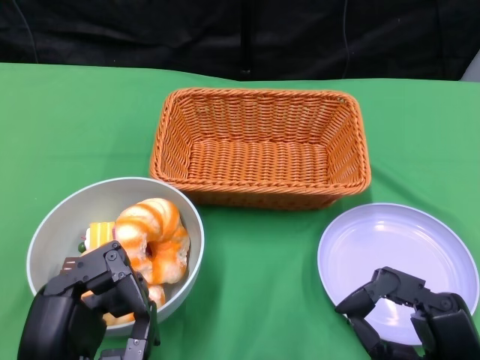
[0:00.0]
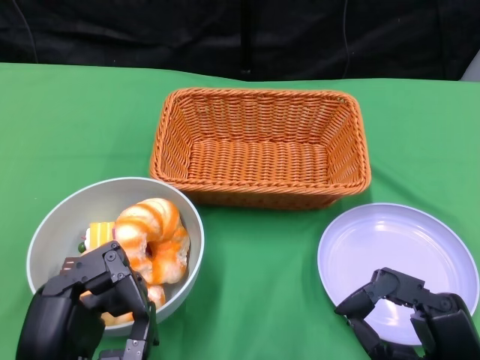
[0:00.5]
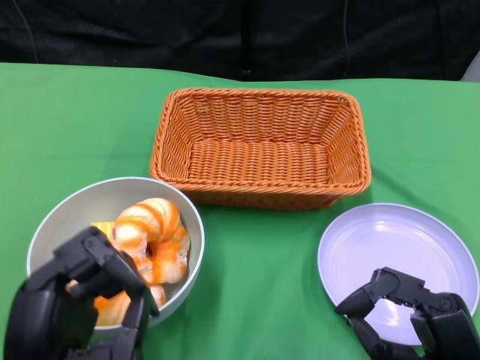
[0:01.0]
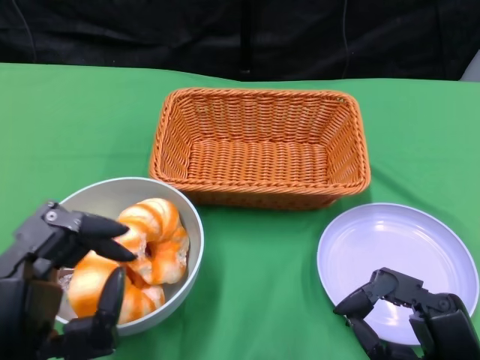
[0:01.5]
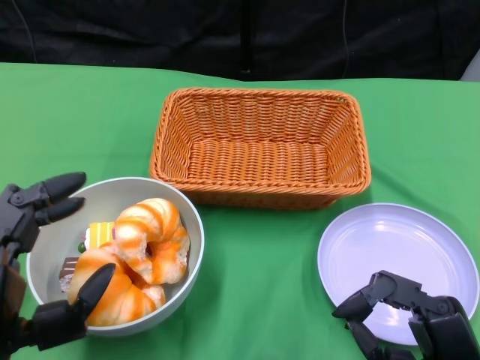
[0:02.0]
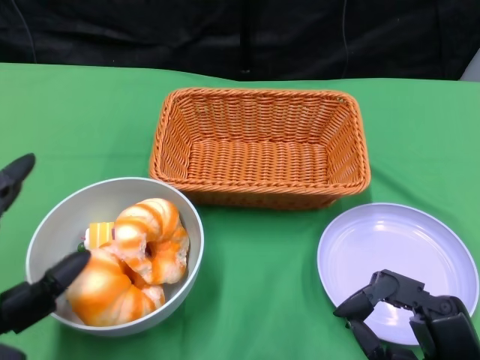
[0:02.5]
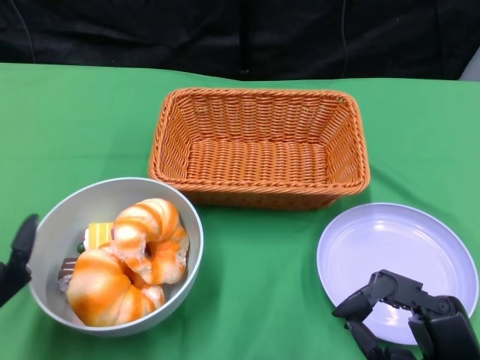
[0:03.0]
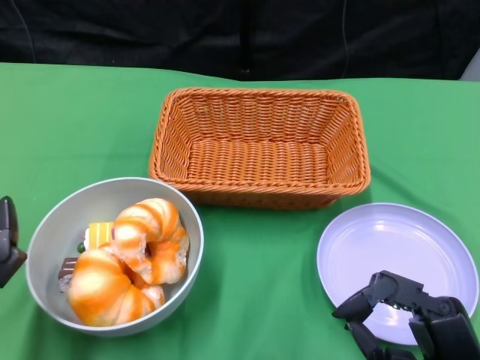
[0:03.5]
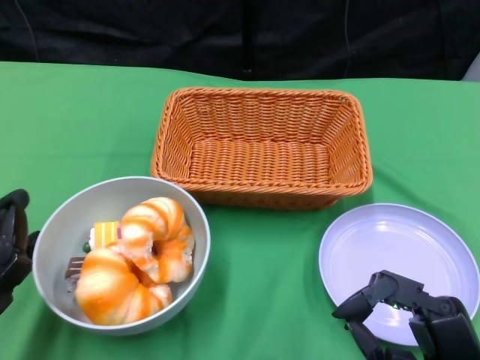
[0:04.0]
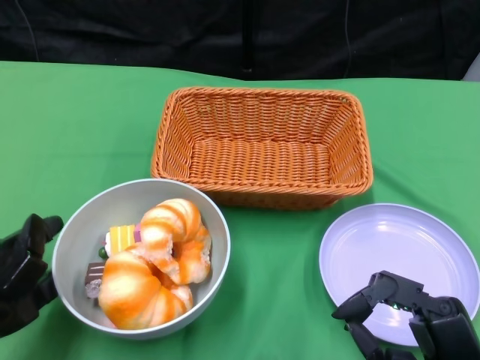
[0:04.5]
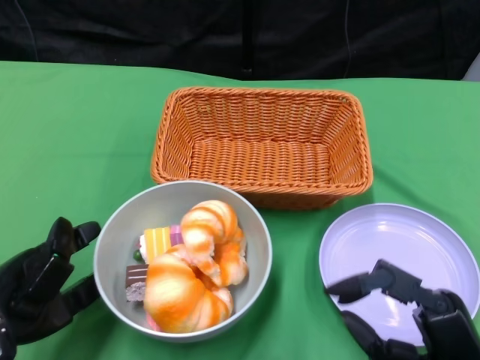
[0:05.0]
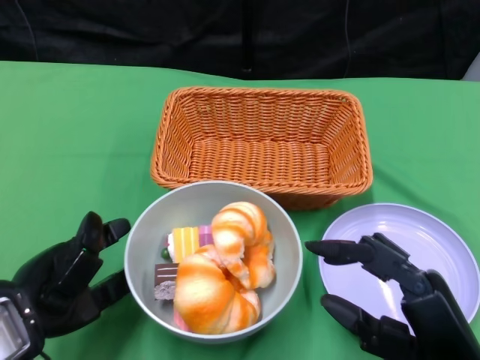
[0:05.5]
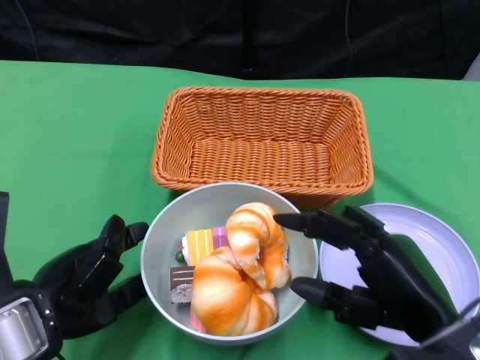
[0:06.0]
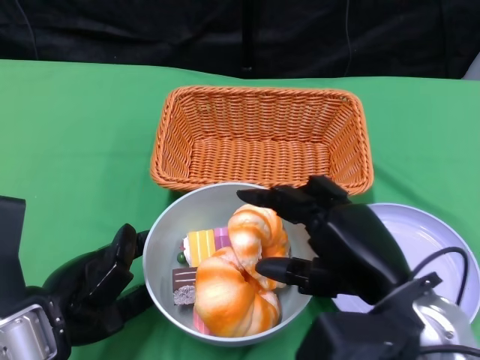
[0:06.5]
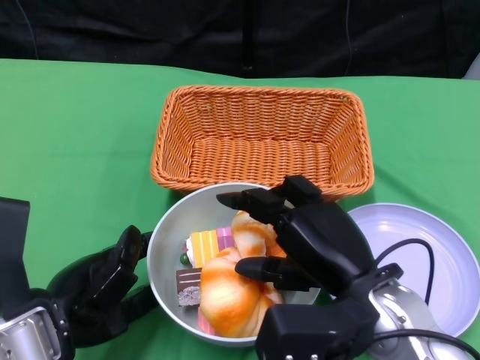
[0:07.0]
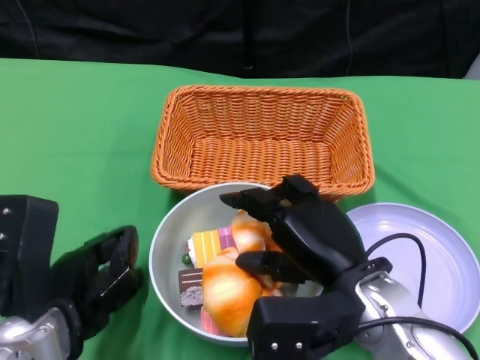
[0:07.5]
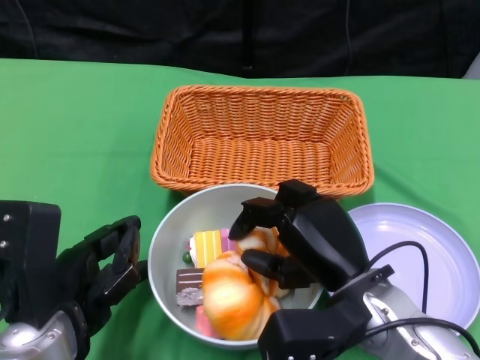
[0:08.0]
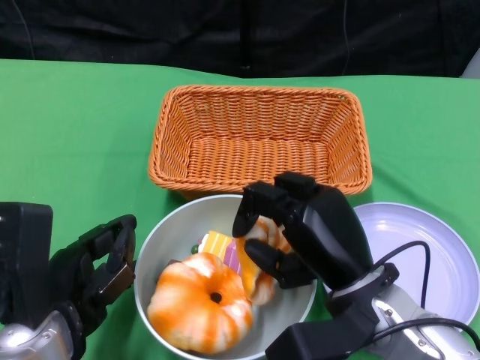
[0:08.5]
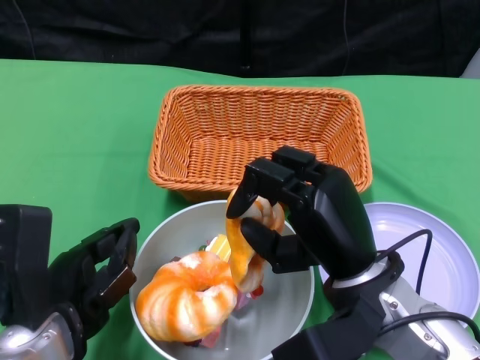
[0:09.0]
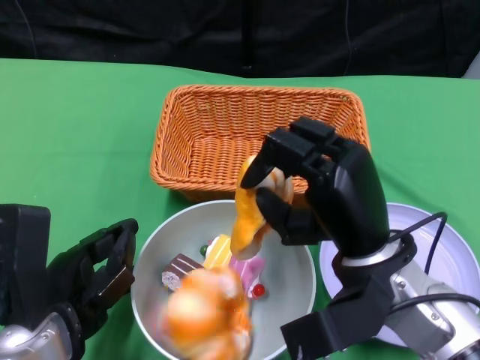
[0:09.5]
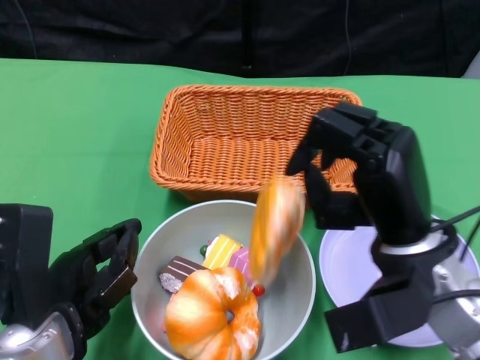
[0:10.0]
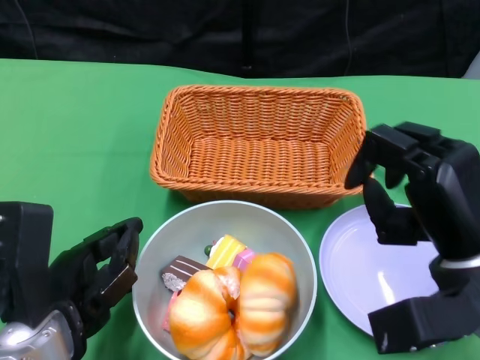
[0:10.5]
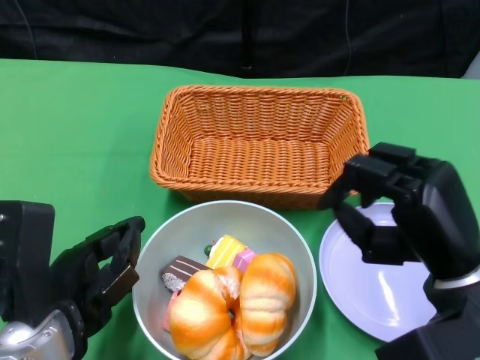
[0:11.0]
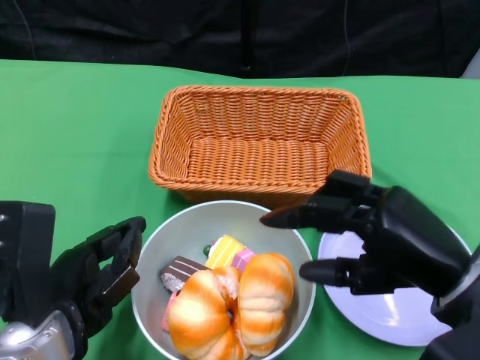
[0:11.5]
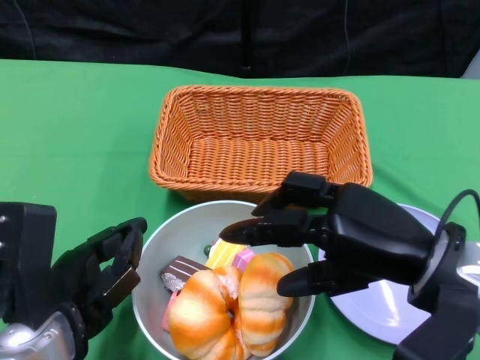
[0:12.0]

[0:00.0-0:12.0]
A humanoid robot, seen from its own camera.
Step, 0.0 to 6.5 s: Push the bowl to the center of the table using the left gripper.
2.0 to 4.0 s: The left hand moves to the left and forward, about 10 cm.
4.0 to 6.0 s: The right hand is displaced upward by about 5 cm. Meanwhile the left hand goes approximately 5 cm to the right.
6.0 to 8.0 s: The right hand shifts some 10 cm to the left and forward.
8.0 to 10.0 s: The right hand is displaced upward by roughly 5 cm.

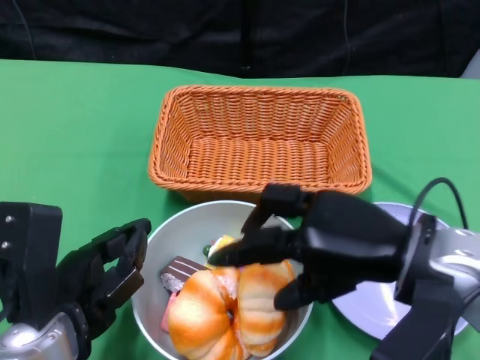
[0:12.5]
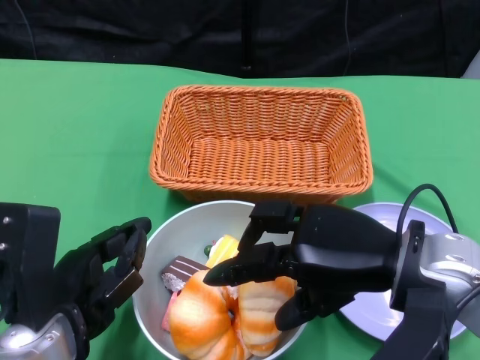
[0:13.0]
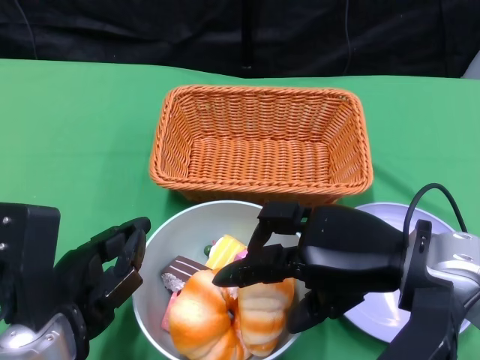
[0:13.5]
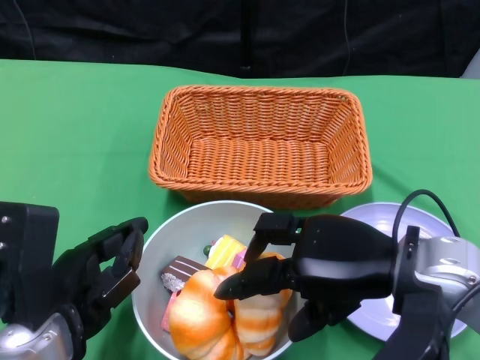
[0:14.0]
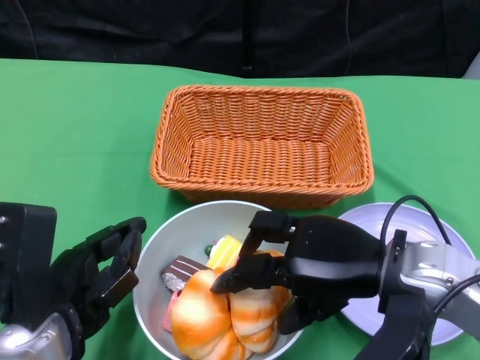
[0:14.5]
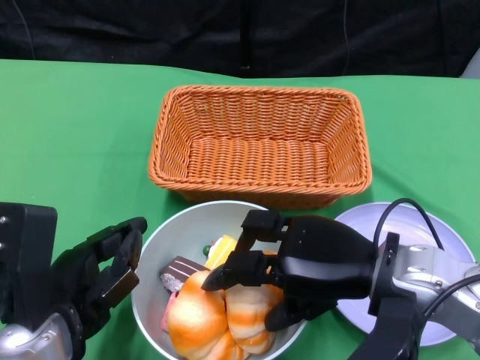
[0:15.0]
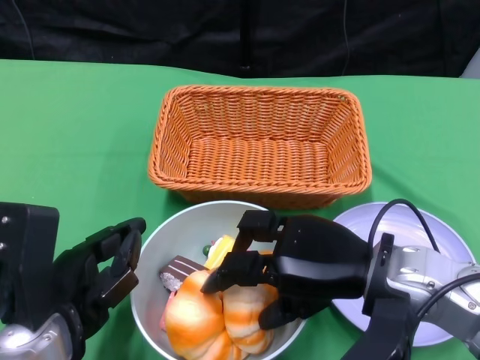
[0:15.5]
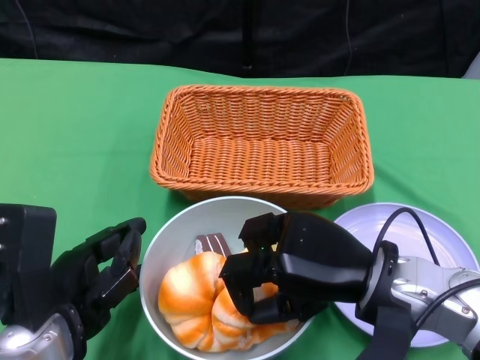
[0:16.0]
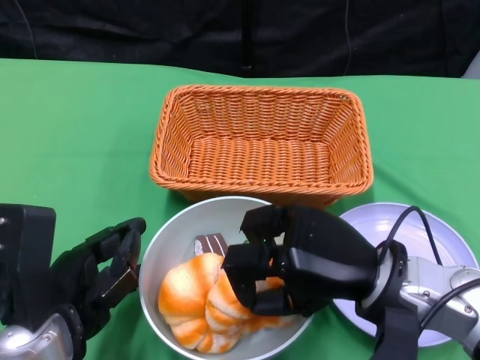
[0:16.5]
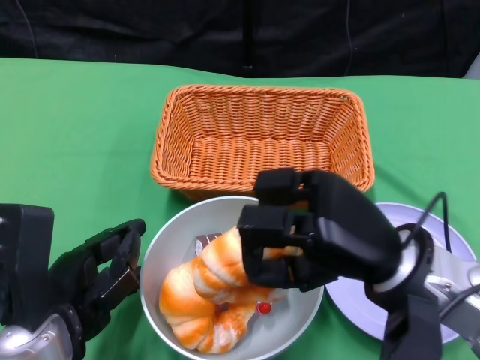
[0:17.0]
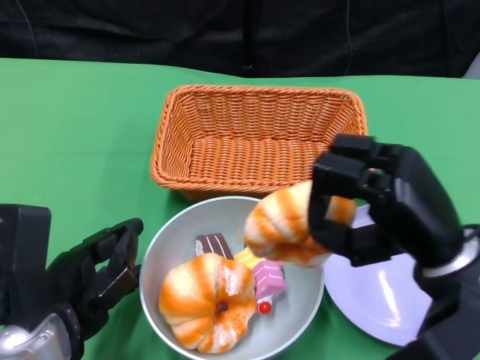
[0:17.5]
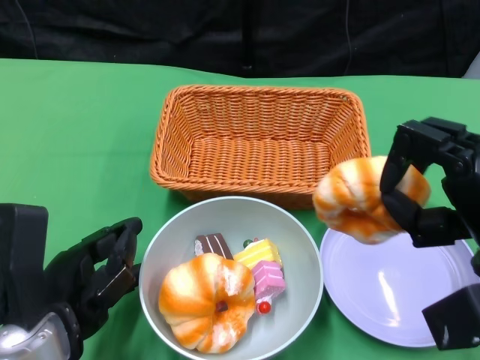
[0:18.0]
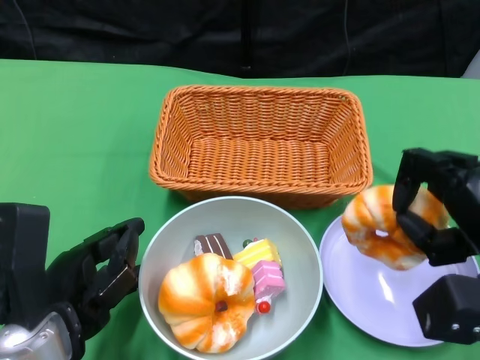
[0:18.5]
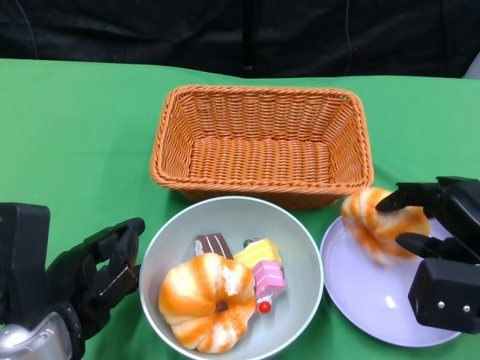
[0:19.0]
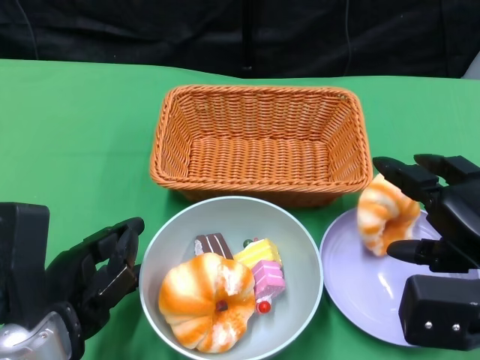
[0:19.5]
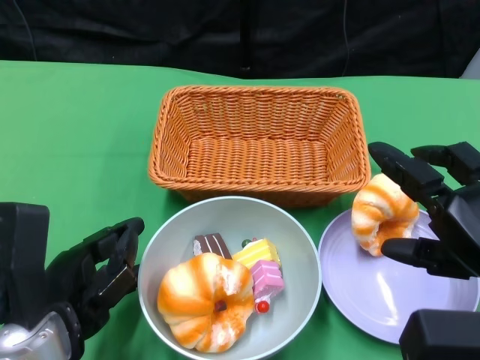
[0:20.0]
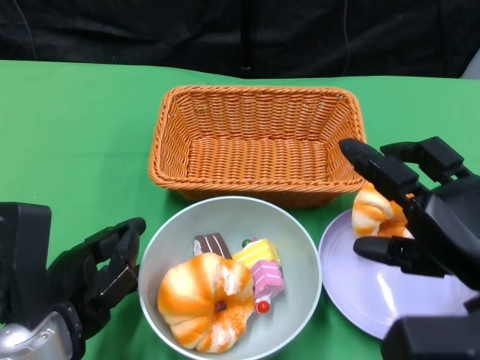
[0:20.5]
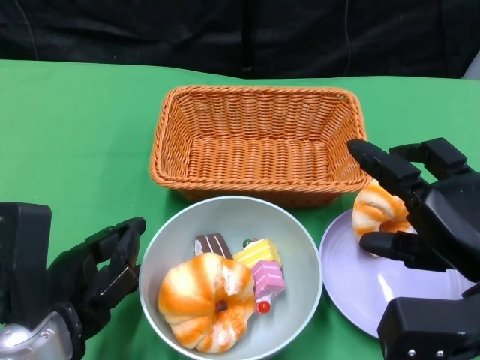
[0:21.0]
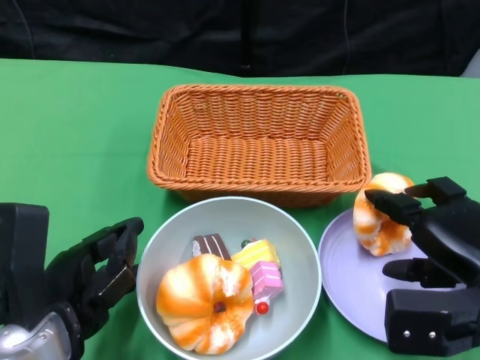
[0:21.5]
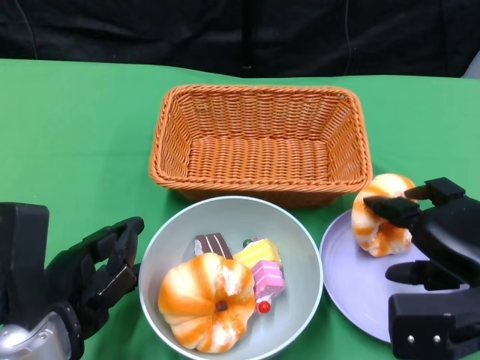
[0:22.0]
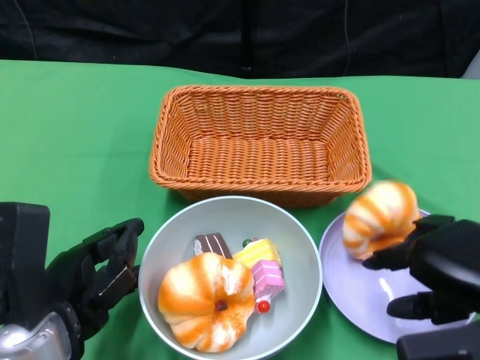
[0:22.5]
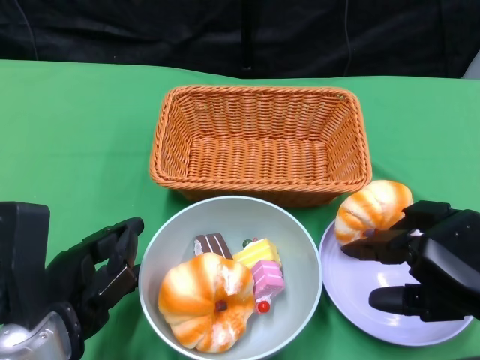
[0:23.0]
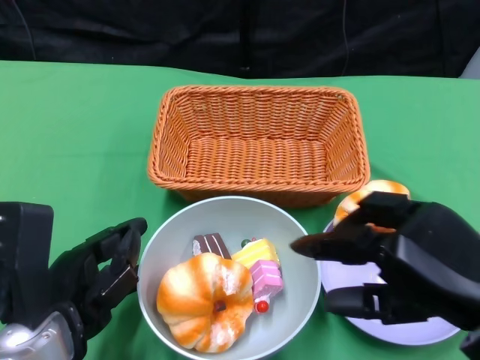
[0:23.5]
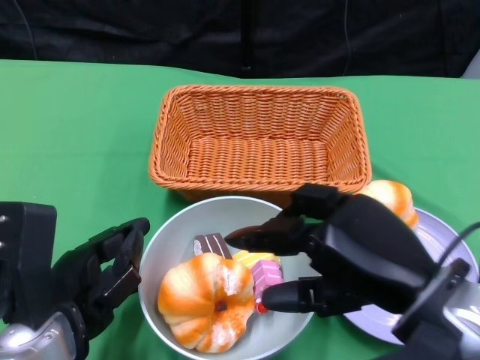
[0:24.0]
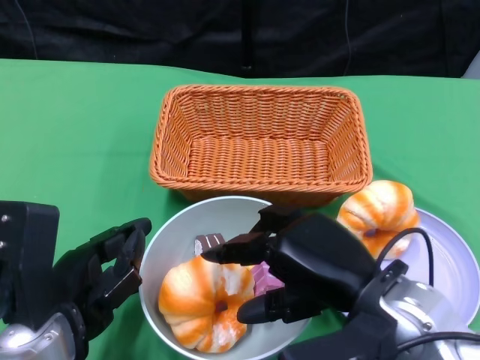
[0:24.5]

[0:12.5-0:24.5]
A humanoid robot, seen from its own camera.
16.5 to 18.5 s: The right hand goes about 10 cm to the right.
18.5 to 20.5 s: The right hand ends up roughly 5 cm from where it was.
22.5 to 24.5 s: The right hand goes about 10 cm to the left.

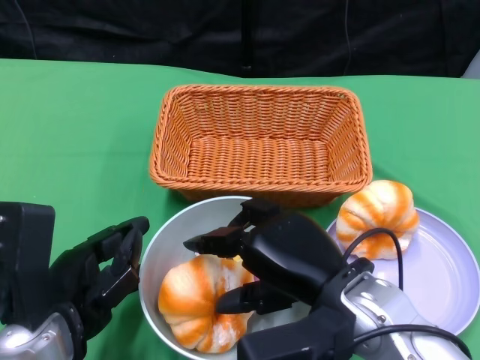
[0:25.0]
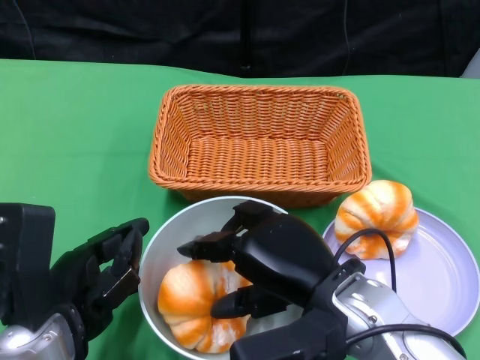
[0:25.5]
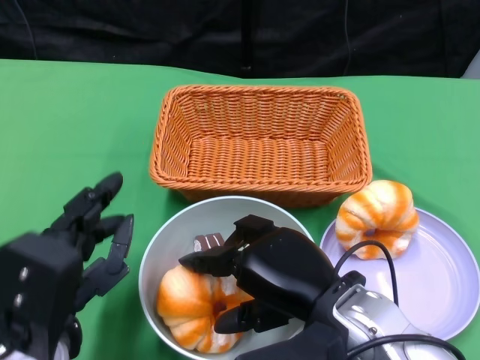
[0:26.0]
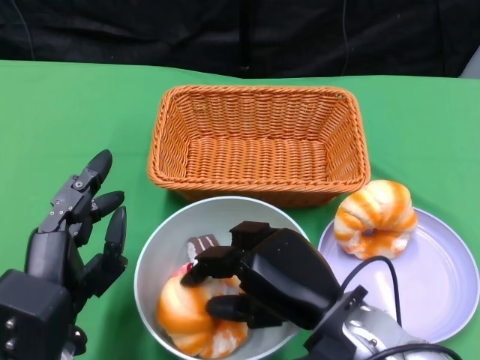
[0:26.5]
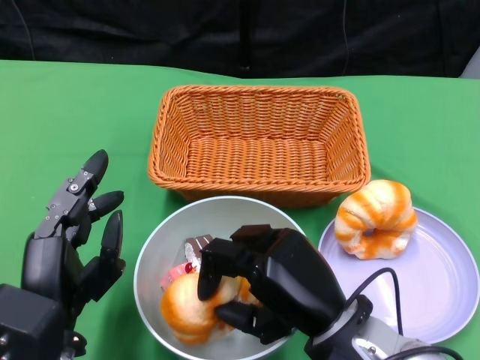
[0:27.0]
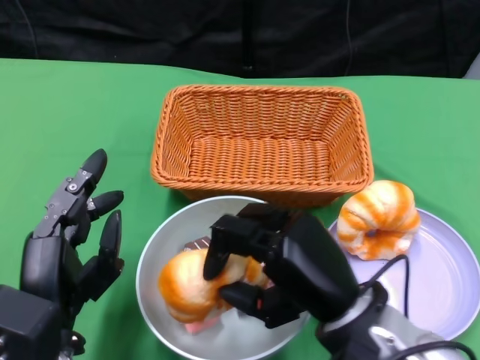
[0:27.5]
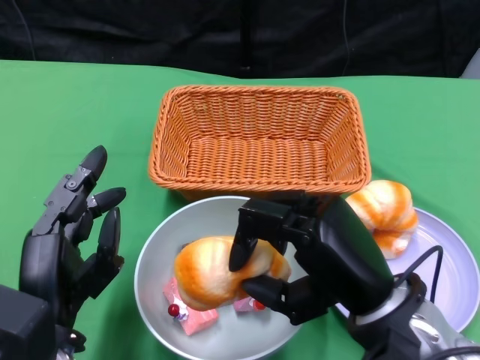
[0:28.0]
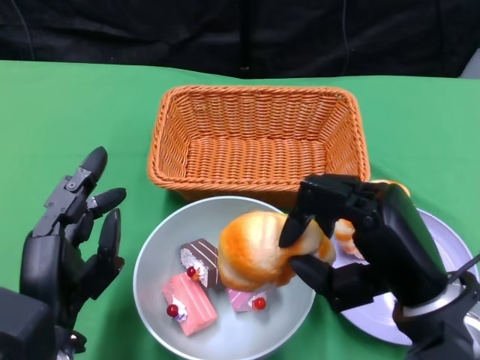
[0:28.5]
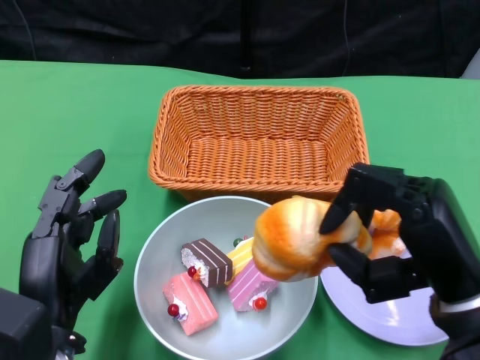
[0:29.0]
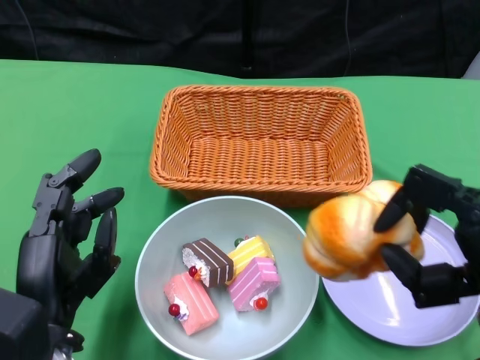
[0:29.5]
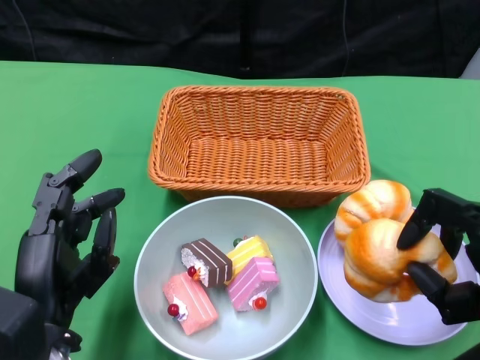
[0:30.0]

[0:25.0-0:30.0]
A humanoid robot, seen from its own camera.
27.5 to 30.0 s: The right hand travels to the right by approximately 15 cm.
